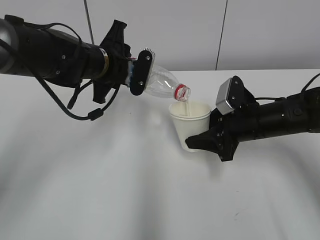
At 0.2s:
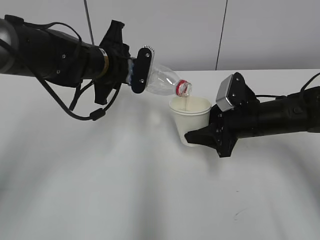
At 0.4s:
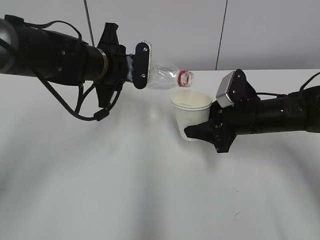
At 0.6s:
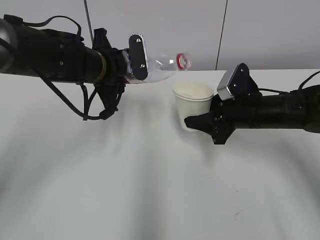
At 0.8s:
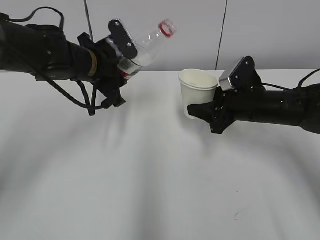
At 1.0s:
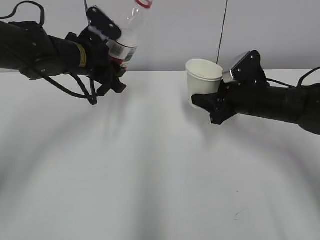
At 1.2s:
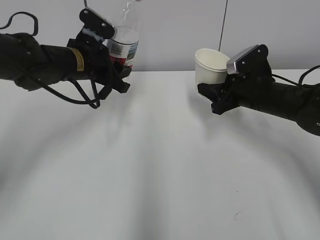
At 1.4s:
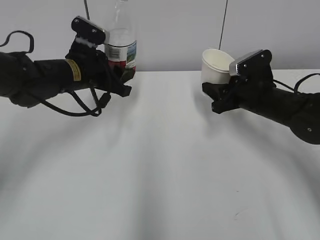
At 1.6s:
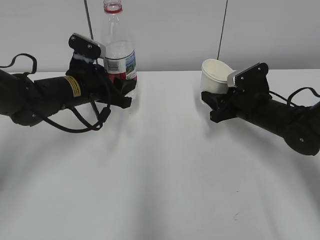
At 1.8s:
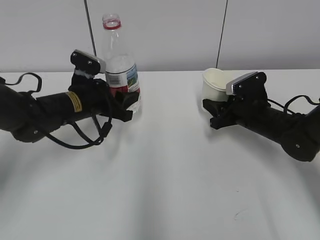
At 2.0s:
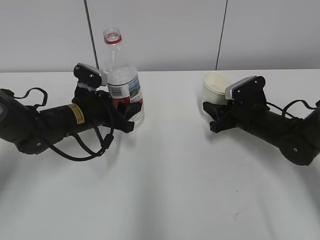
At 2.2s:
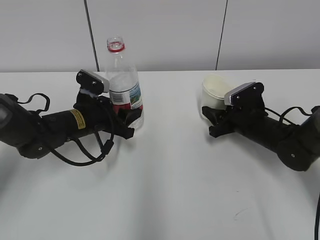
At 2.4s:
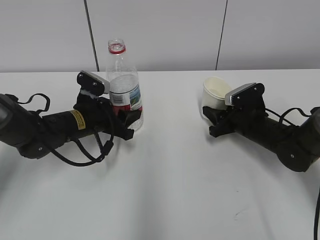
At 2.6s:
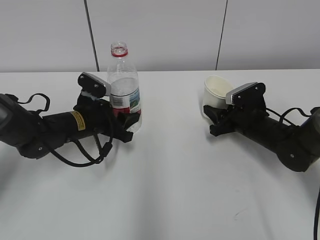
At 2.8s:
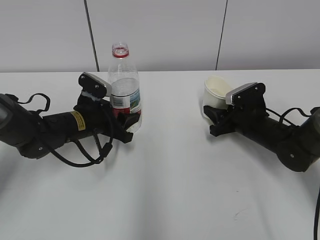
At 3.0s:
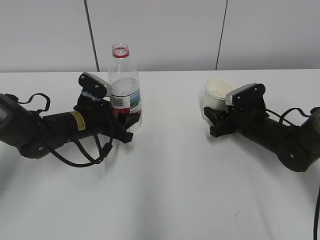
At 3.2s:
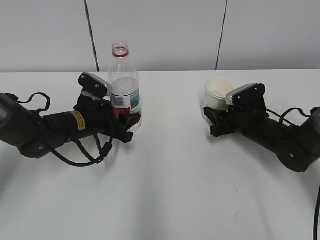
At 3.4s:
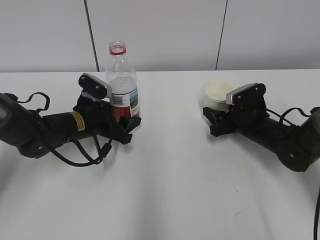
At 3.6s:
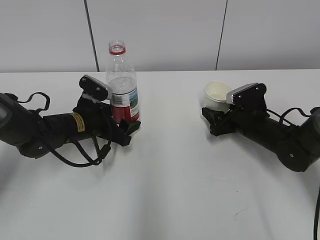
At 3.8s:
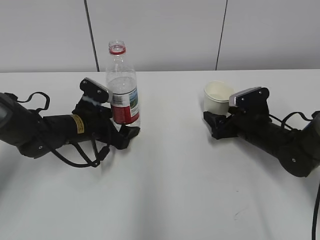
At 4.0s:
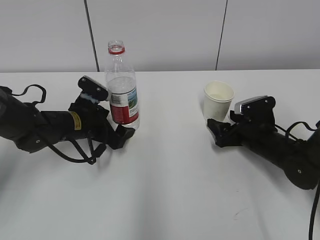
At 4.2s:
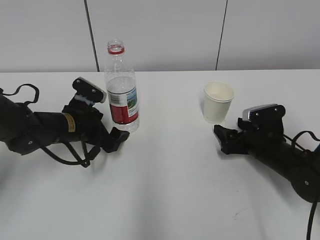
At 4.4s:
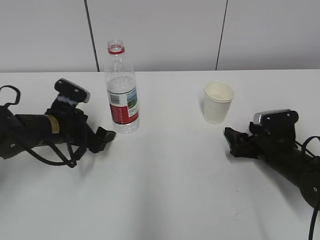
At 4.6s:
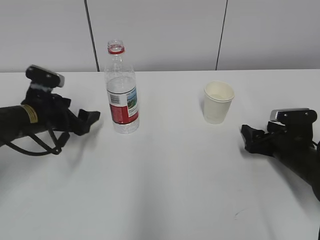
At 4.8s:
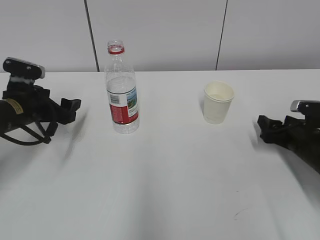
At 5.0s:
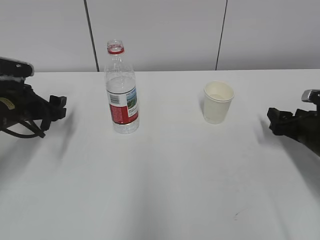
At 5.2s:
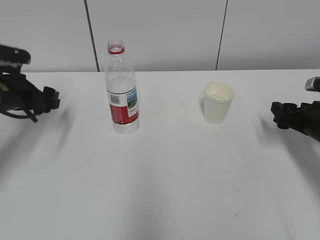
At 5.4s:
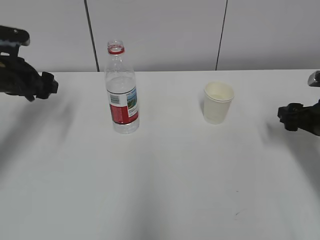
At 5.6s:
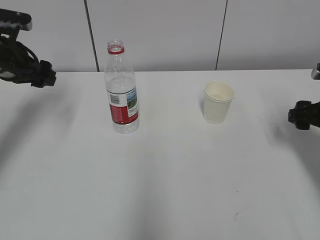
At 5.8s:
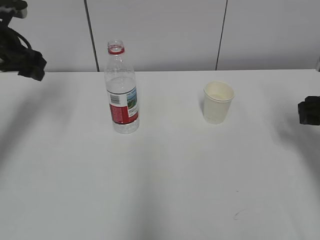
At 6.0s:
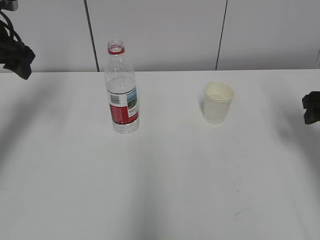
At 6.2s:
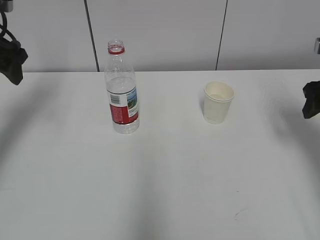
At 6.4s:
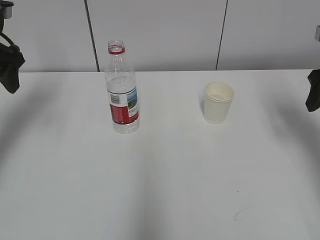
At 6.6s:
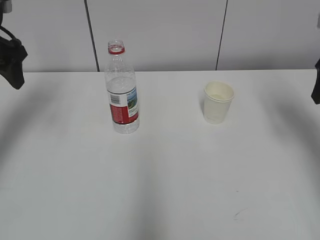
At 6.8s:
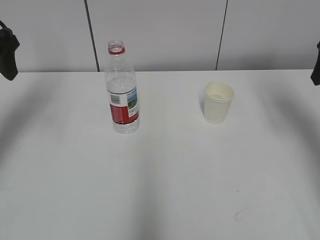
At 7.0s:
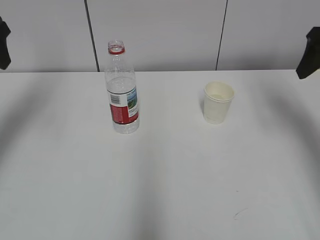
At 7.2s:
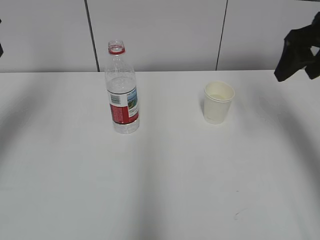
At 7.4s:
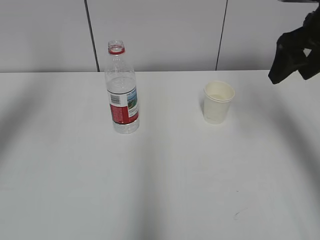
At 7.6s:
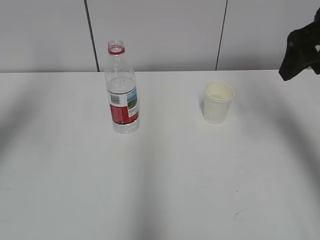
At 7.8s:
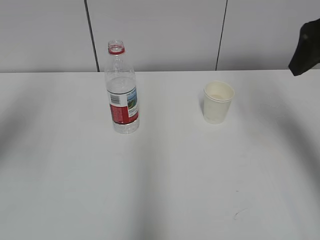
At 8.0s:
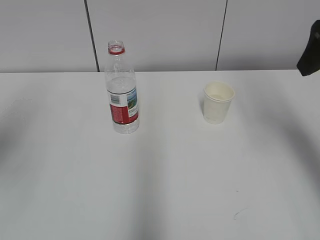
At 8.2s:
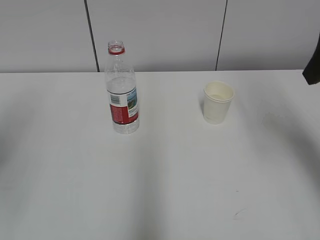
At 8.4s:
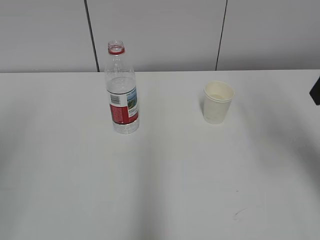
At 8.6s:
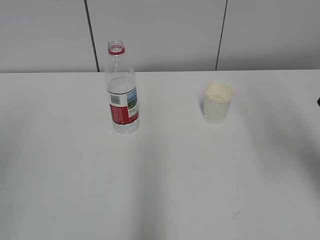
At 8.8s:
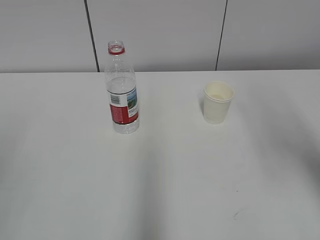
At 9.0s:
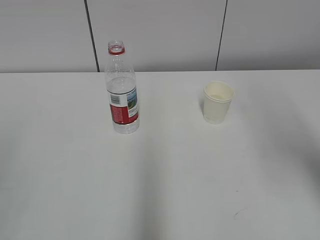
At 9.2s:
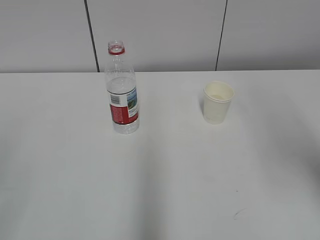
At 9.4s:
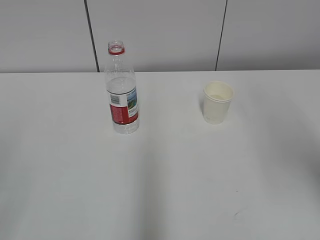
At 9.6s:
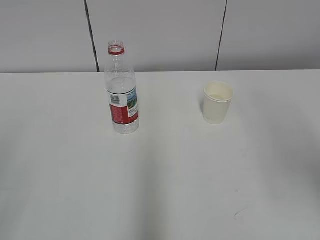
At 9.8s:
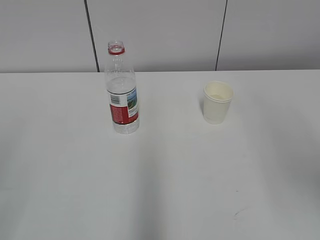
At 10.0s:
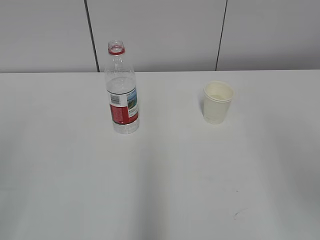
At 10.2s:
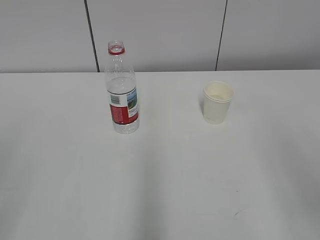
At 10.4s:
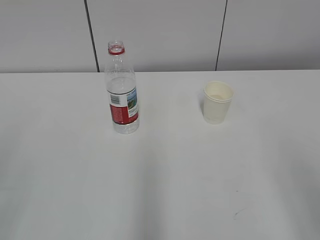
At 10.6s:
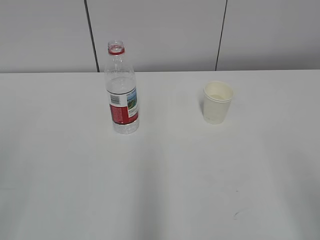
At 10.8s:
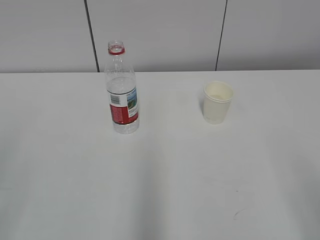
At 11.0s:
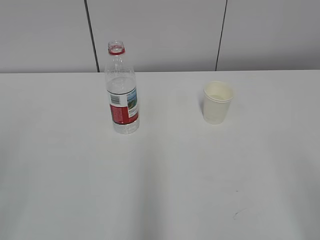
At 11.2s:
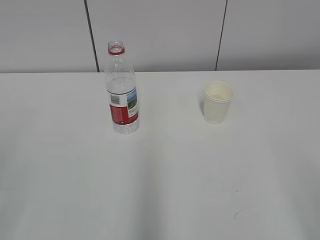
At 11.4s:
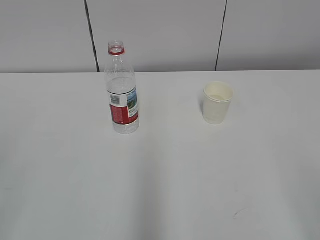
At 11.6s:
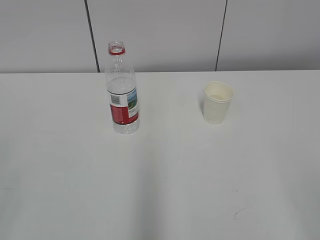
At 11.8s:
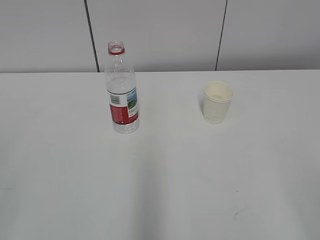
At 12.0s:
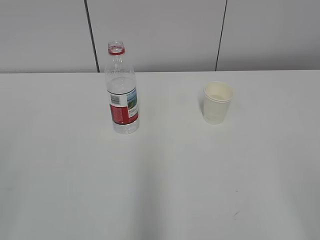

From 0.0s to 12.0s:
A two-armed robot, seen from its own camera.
From 0.0s to 1.6s: The left gripper is displaced downward by roughly 5 cm; the right gripper moves roughly 5 cm.
From 1.6s to 3.0s: Both grippers move downward, some 5 cm.
From 3.0s to 4.4s: The right gripper shifts some 5 cm backward, and opens up, while the left gripper moves about 5 cm, and opens.
From 4.4s to 6.0s: The left gripper goes some 20 cm upward and to the left. Meanwhile the right gripper travels upward and to the right by roughly 20 cm.
From 6.0s to 7.6s: The right gripper travels upward and to the left by about 15 cm; the left gripper moves backward and upward, roughly 15 cm.
From 7.6s to 9.0s: The left gripper travels backward by some 25 cm. The right gripper travels backward by approximately 15 cm.
From 9.0s to 10.4s: The right gripper heads backward and downward, covering approximately 15 cm.

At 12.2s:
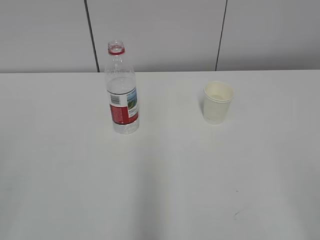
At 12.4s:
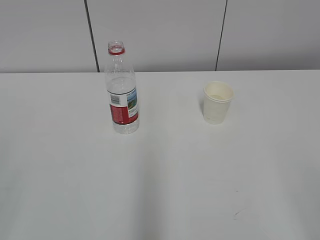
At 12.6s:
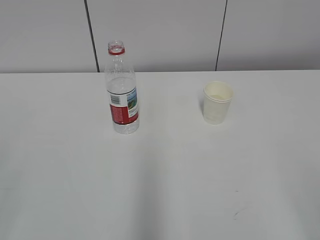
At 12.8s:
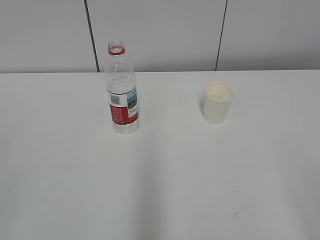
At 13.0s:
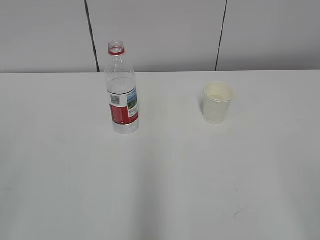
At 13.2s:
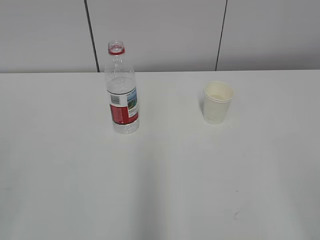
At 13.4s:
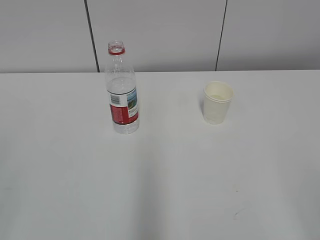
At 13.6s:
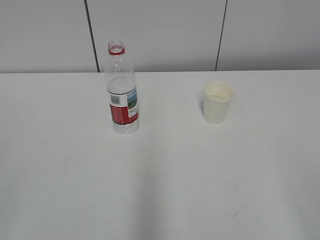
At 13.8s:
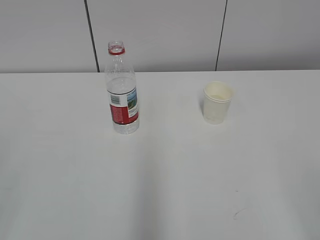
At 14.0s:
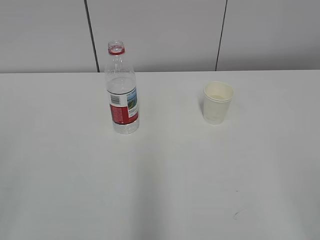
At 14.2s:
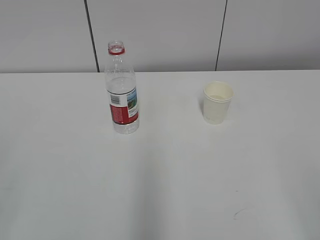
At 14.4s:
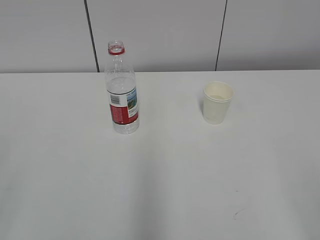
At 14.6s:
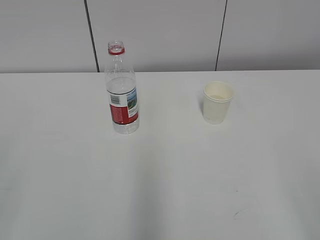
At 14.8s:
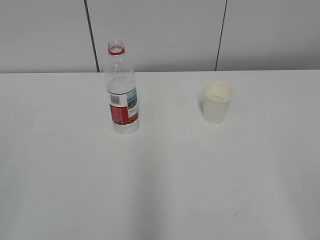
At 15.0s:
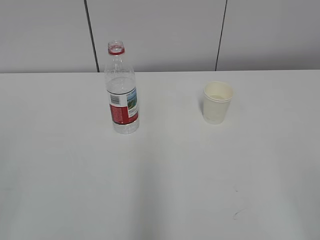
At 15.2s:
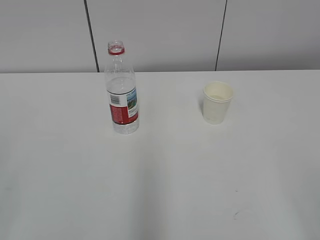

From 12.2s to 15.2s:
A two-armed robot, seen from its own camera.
From 12.2s to 15.2s: Both grippers stay put.

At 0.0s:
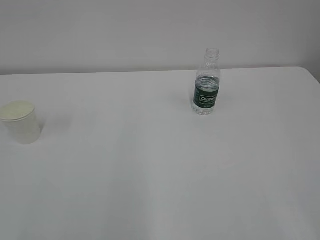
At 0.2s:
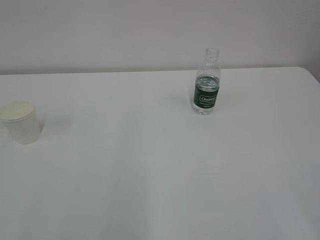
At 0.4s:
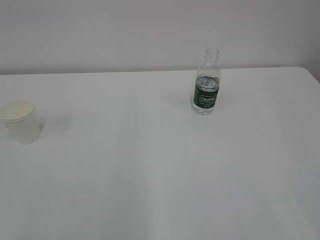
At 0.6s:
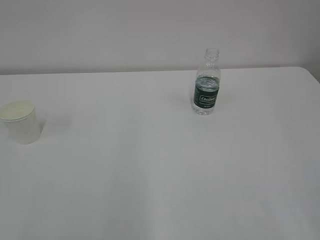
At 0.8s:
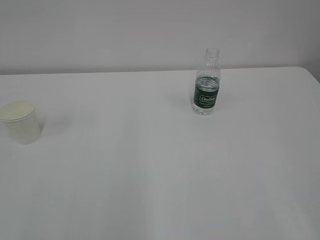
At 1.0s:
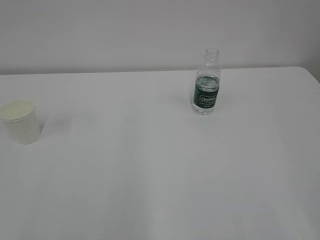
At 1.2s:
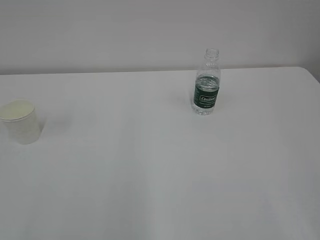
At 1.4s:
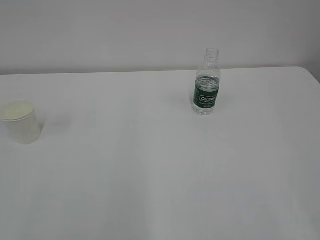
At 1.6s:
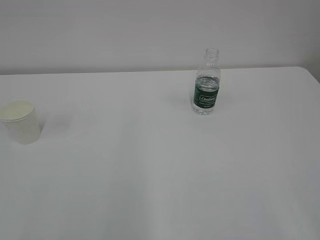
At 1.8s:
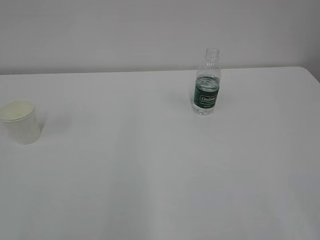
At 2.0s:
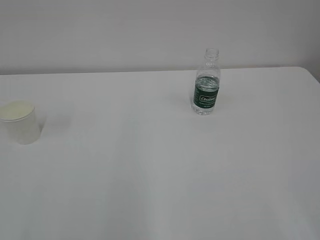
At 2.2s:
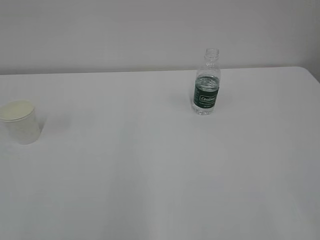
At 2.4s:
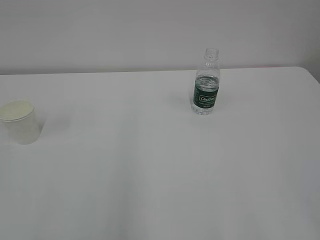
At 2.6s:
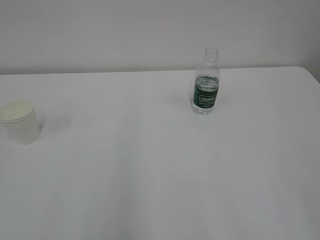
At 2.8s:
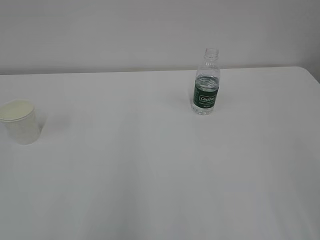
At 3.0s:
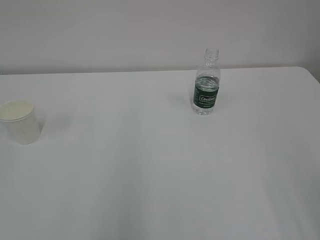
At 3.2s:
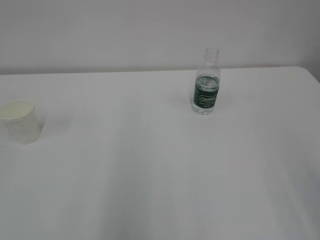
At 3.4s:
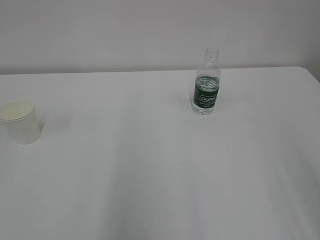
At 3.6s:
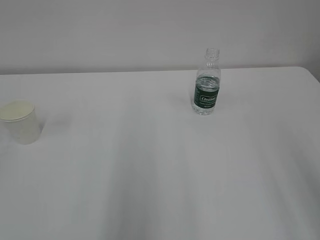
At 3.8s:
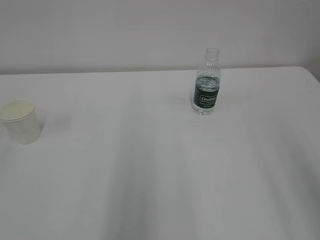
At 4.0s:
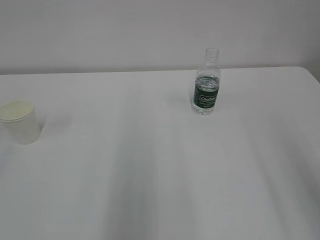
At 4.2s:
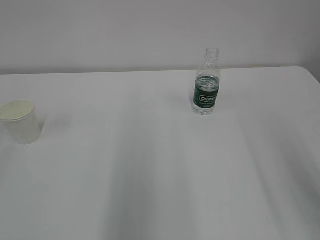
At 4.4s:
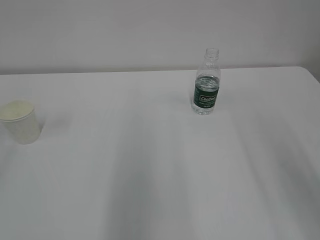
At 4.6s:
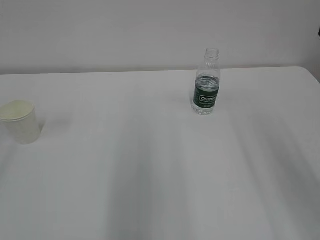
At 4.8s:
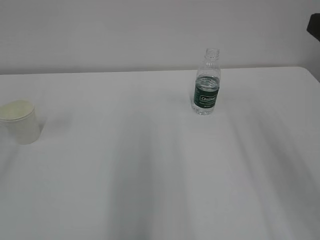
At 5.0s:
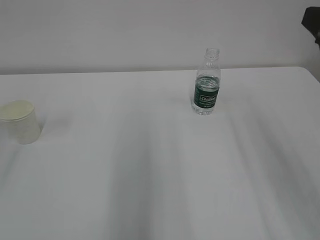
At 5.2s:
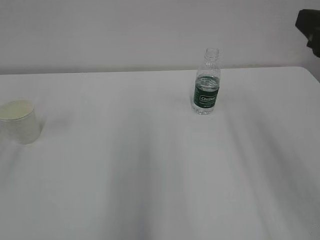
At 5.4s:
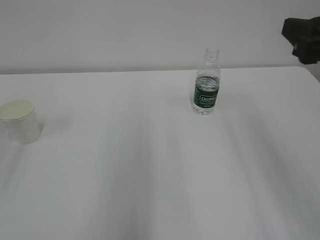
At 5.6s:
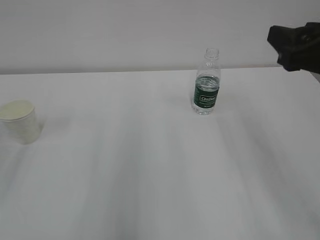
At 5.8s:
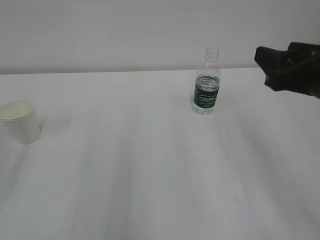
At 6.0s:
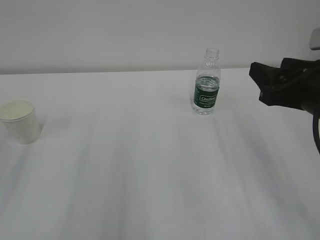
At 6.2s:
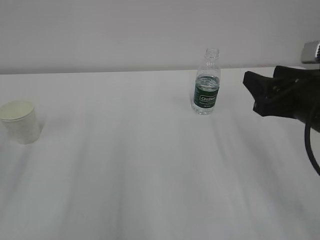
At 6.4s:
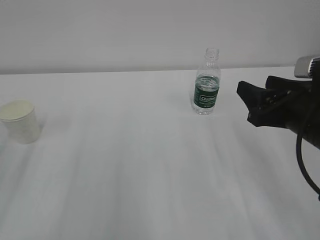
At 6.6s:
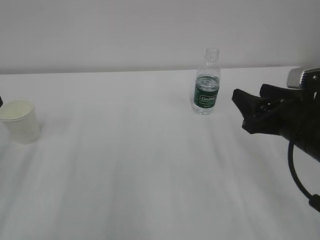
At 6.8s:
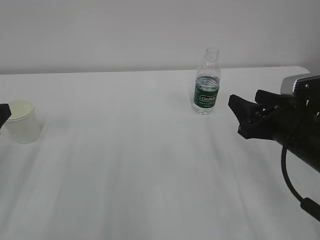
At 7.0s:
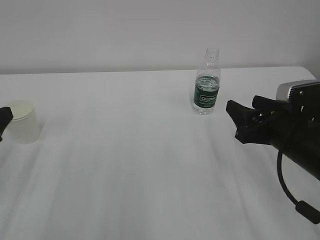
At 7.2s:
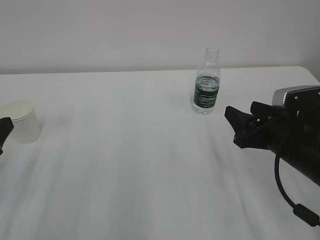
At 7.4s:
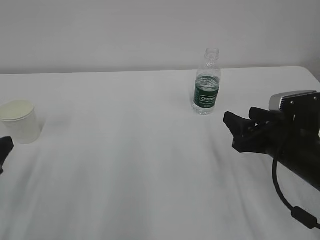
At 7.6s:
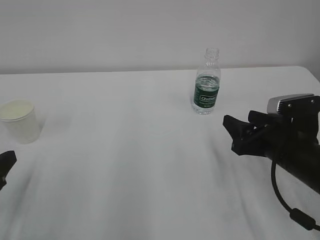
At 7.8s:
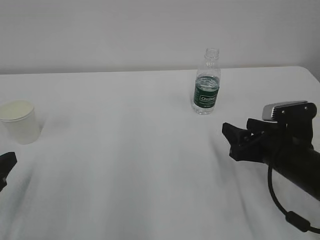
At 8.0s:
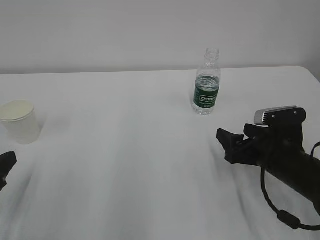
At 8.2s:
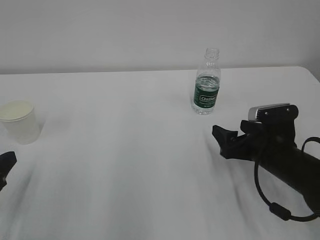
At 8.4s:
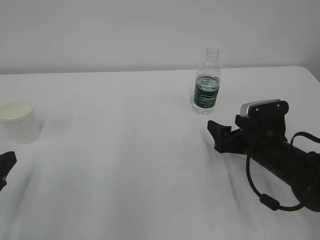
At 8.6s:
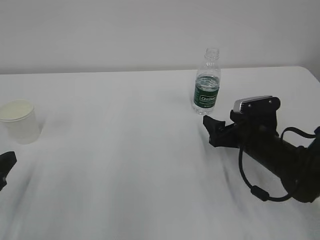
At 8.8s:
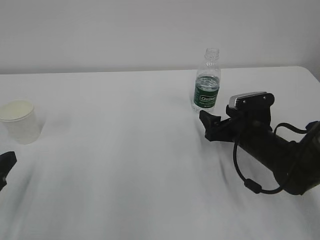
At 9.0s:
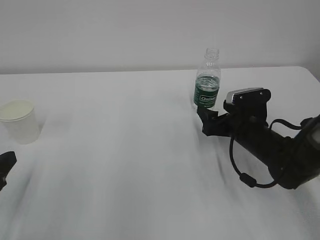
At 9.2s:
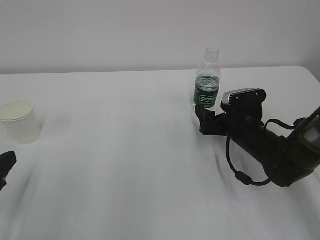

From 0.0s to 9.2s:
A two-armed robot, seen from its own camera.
From 4.6s to 6.2s: The right gripper goes some 15 cm downward and forward.
From 6.2s to 7.6s: The two grippers go about 10 cm downward.
From 7.6s to 9.2s: The right gripper goes approximately 10 cm forward and downward, and opens its fingers.
